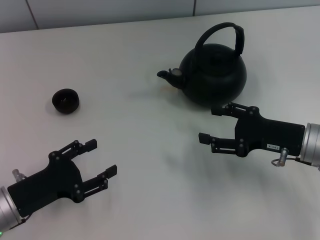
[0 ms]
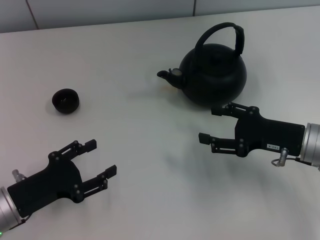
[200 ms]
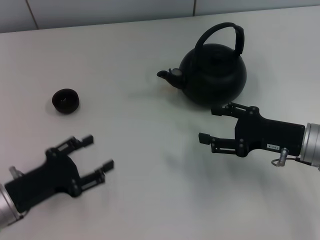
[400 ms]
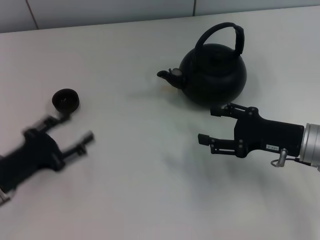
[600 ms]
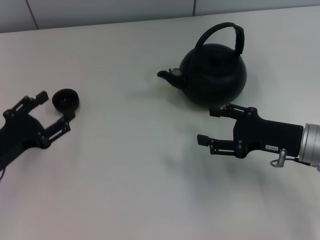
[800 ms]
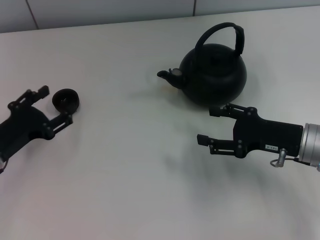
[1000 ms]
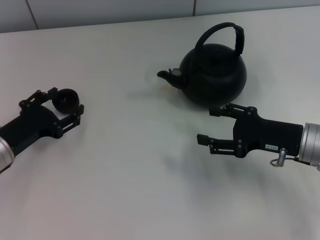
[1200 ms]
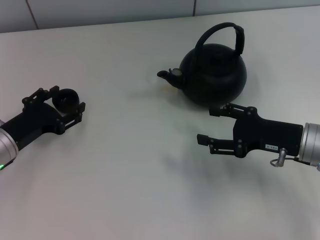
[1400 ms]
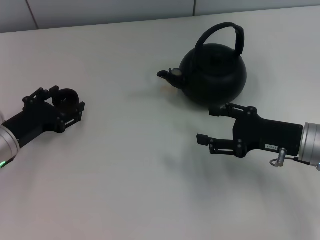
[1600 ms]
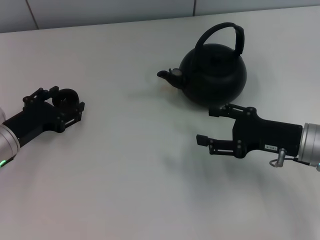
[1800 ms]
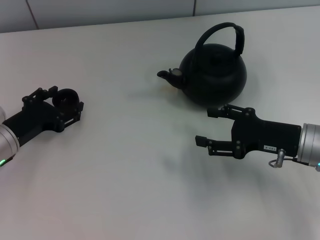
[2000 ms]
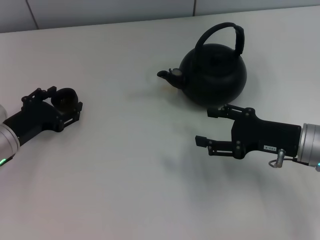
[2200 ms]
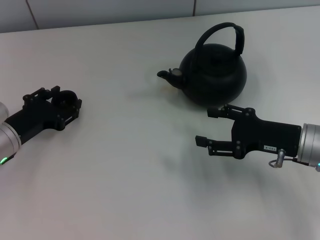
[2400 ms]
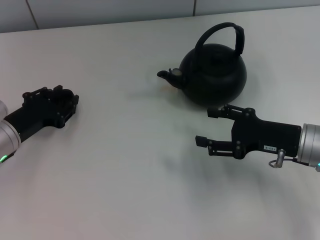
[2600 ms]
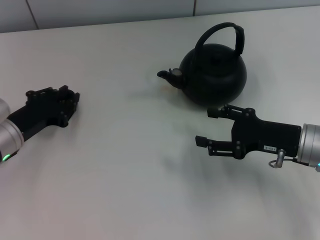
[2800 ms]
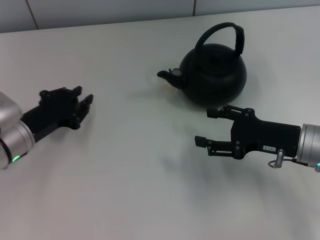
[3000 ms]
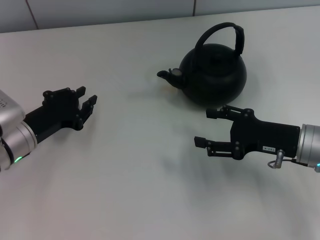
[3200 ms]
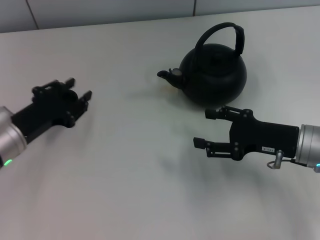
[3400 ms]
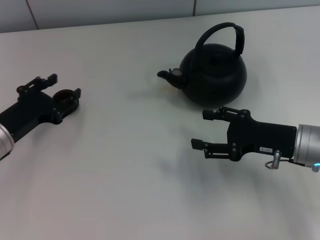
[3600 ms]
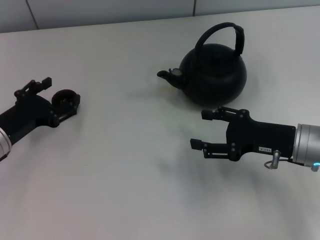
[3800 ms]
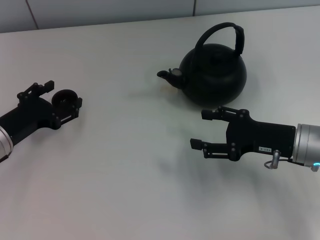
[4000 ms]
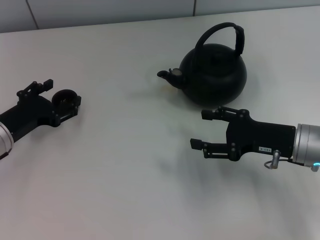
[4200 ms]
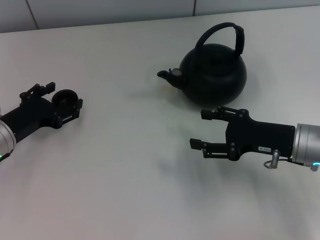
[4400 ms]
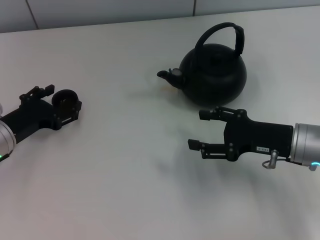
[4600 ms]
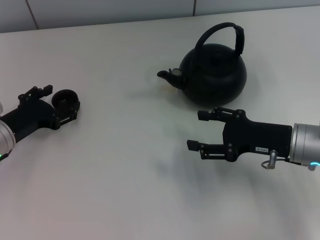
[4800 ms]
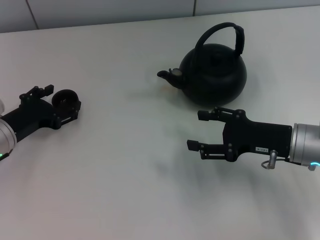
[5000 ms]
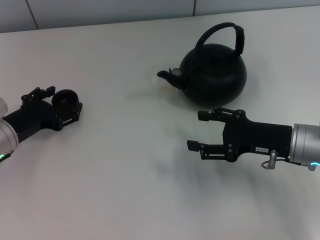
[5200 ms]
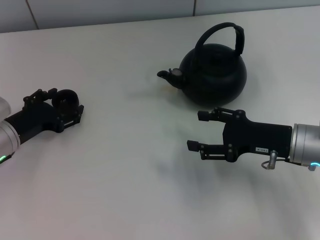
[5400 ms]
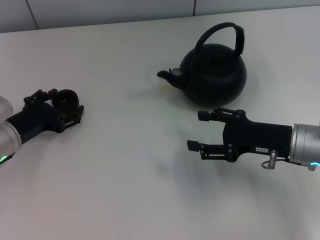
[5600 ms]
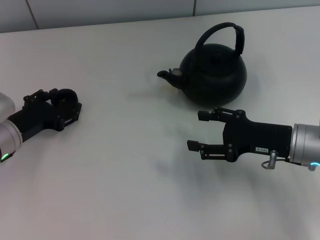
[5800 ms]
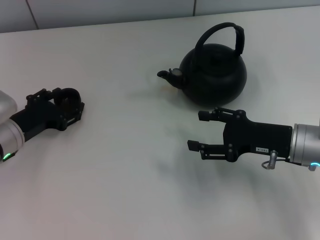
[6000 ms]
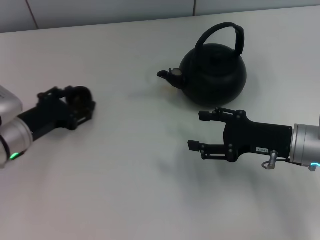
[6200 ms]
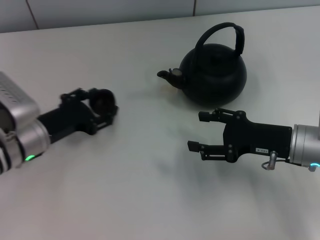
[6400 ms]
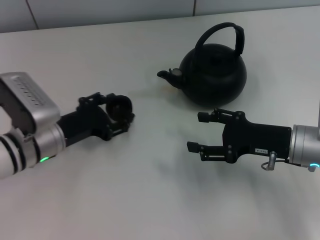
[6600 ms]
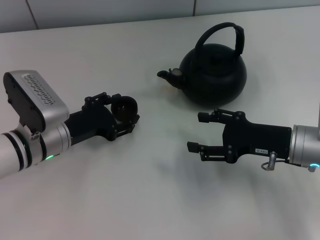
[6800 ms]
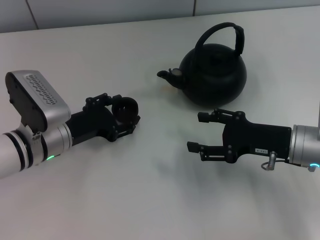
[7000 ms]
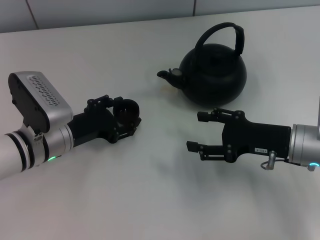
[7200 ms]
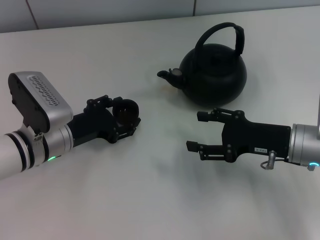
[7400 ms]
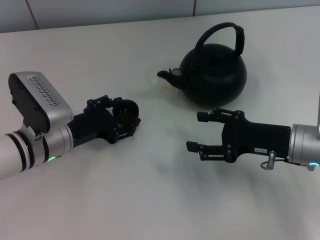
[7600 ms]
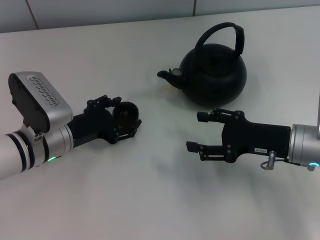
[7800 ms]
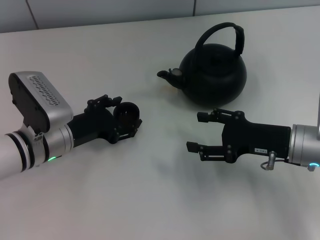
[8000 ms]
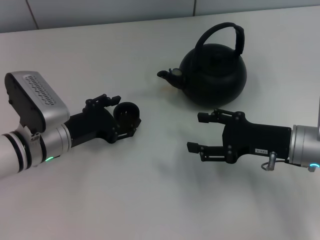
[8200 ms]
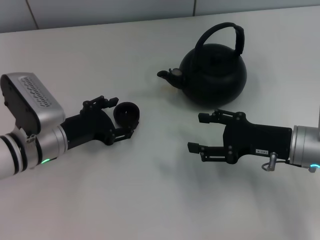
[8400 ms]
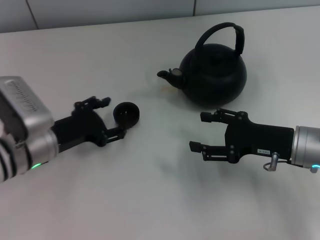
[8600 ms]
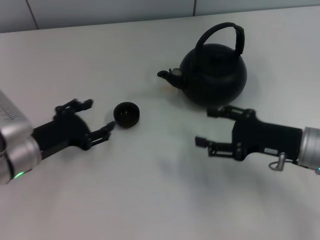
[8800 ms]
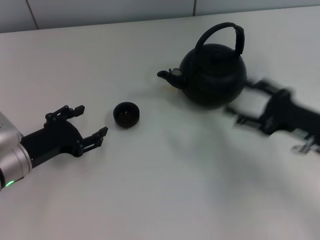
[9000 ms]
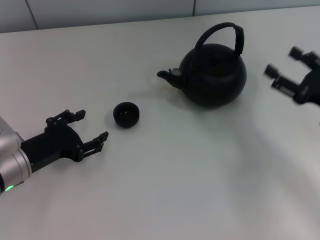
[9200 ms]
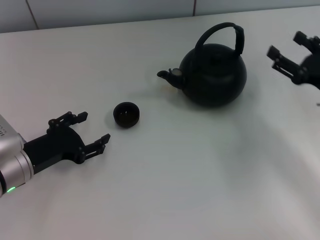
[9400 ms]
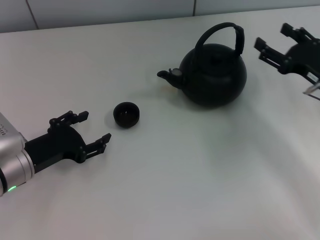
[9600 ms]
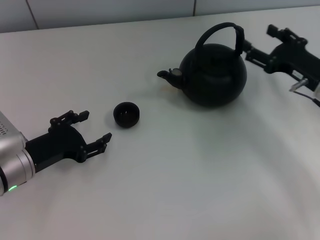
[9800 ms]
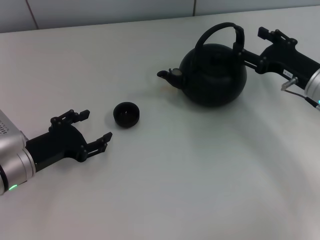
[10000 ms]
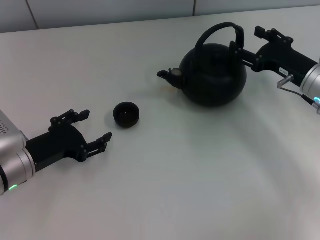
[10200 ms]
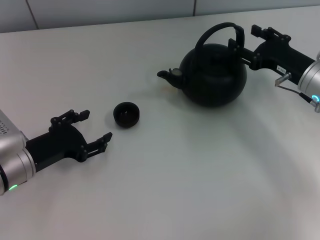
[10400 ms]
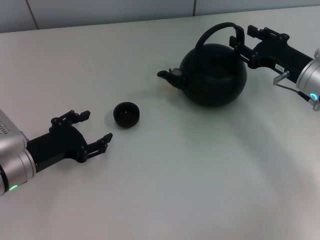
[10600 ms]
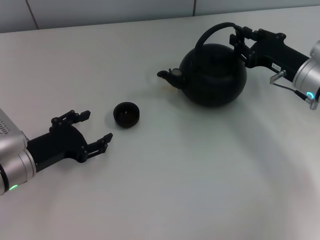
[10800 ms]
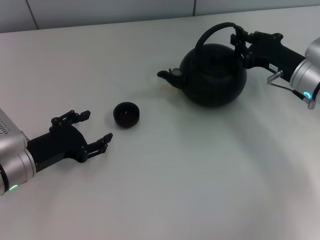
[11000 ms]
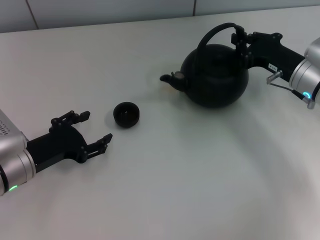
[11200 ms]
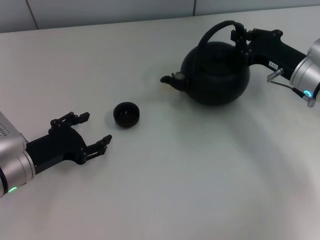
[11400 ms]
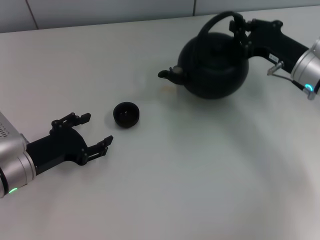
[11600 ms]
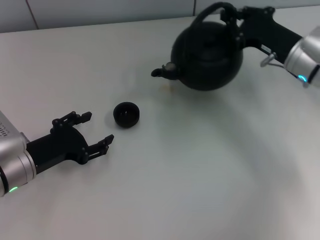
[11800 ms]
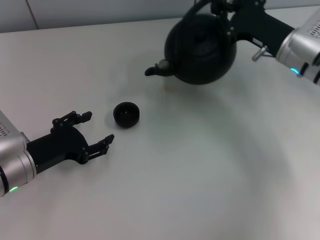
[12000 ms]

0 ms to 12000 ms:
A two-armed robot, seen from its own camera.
Task of the whole recording: Grasp the handle of the teapot with one hand and pour tea into the teacup.
Step, 0 ms to 6000 ms: Pick up the teacup with the left gripper.
Step, 6200 ms to 8600 ms: Place the teacup in the center of view with the left gripper.
Step, 8800 ms to 11600 ms: Pick up the teapot with the right gripper.
0 ms to 1600 ms: The left gripper travels forward by approximately 10 cm.
1600 ms to 3000 ms: The left gripper closes its fingers.
3000 ms to 4400 ms: The left gripper opens.
4400 ms to 6000 ms: The grippers stay close to where they were, moving slightly.
6000 ms to 7600 ms: The left gripper travels to the right by roughly 5 cm.
7600 ms to 9000 ms: The left gripper goes some 5 cm to the left, while the right gripper shifts roughly 5 cm to the right.
9000 ms to 10400 ms: The right gripper goes roughly 10 cm forward.
10400 ms to 12000 ms: The right gripper changes place by about 5 cm, and closes.

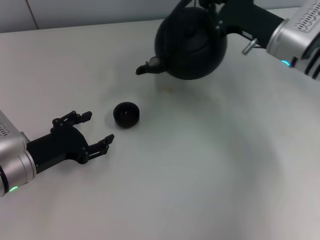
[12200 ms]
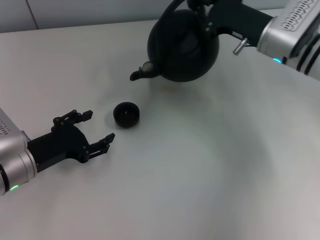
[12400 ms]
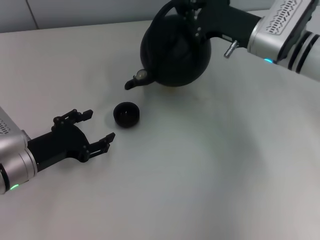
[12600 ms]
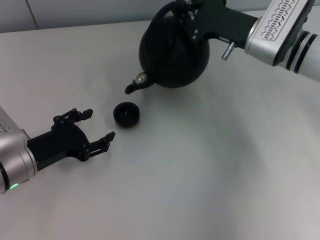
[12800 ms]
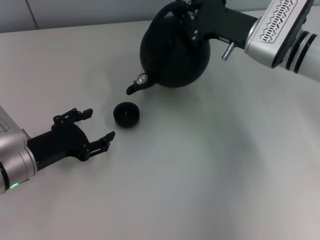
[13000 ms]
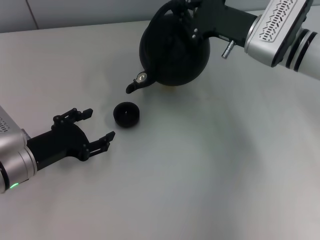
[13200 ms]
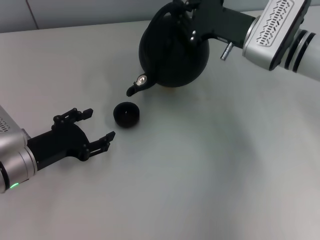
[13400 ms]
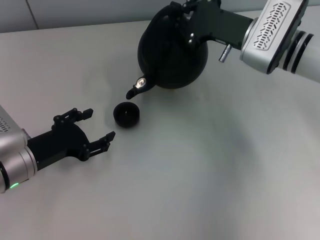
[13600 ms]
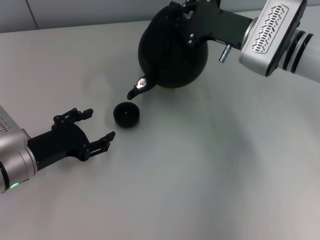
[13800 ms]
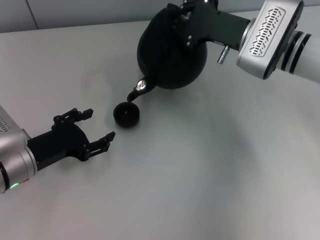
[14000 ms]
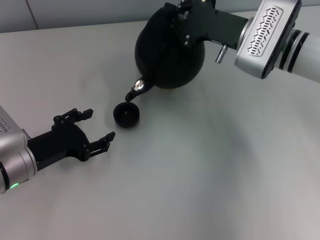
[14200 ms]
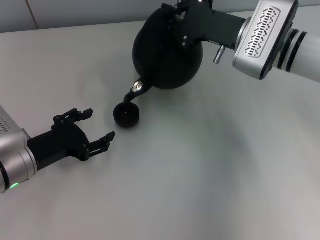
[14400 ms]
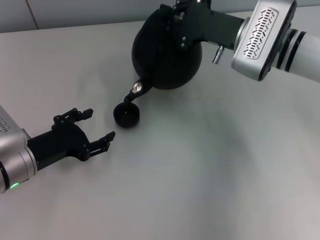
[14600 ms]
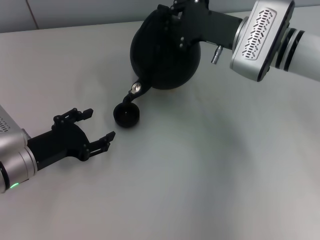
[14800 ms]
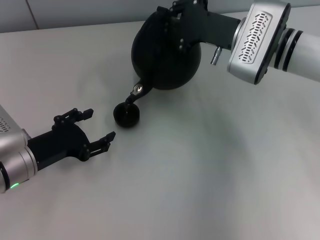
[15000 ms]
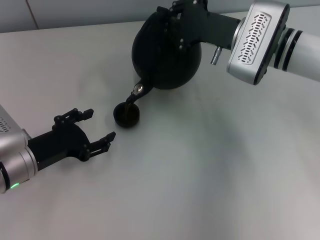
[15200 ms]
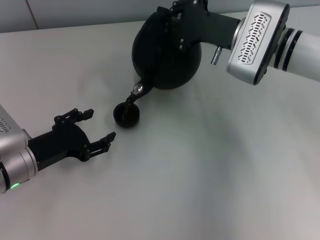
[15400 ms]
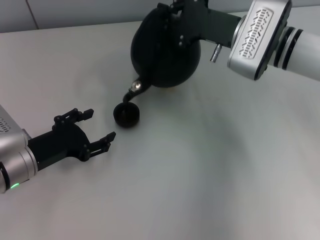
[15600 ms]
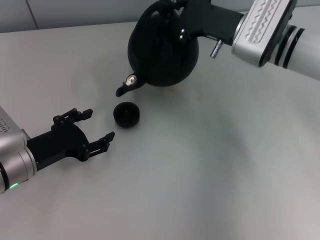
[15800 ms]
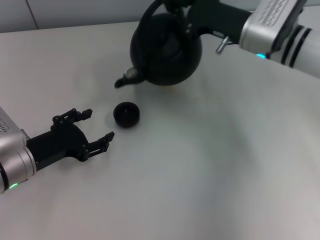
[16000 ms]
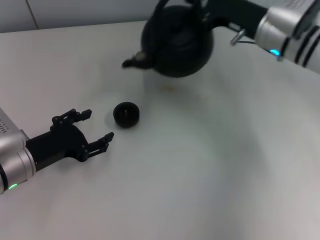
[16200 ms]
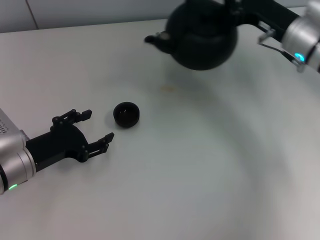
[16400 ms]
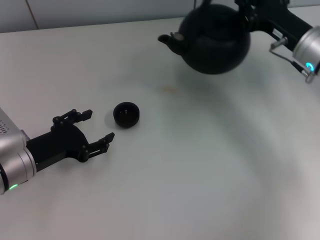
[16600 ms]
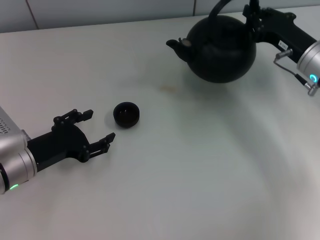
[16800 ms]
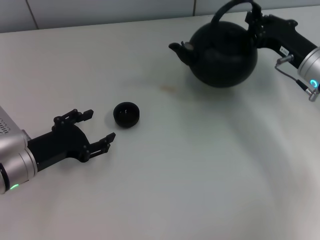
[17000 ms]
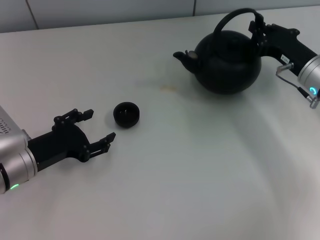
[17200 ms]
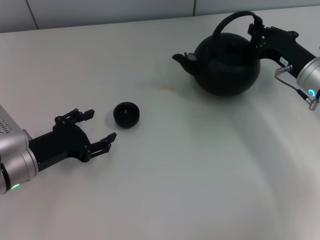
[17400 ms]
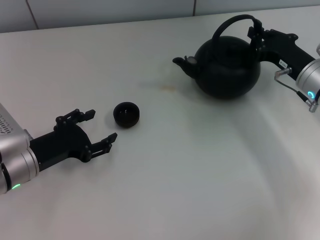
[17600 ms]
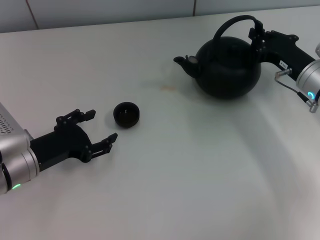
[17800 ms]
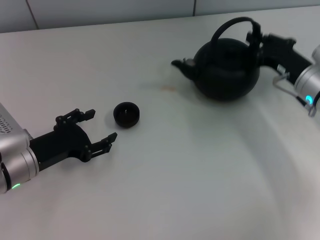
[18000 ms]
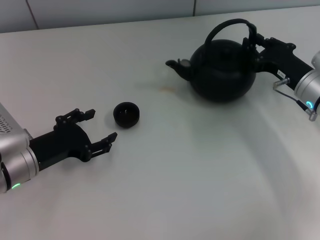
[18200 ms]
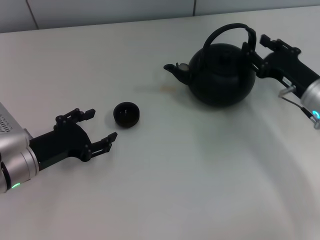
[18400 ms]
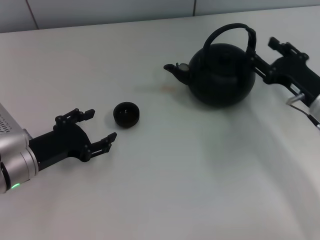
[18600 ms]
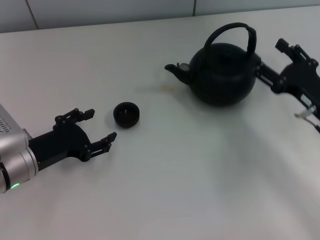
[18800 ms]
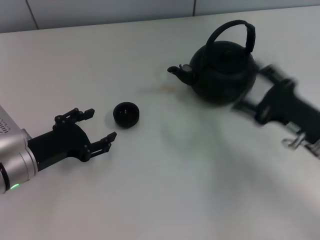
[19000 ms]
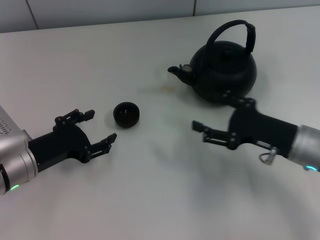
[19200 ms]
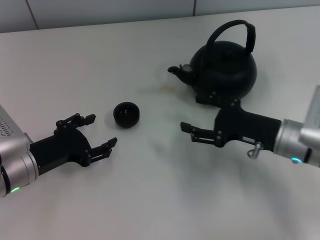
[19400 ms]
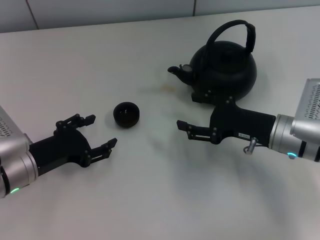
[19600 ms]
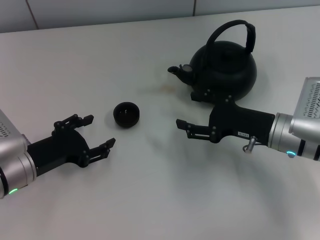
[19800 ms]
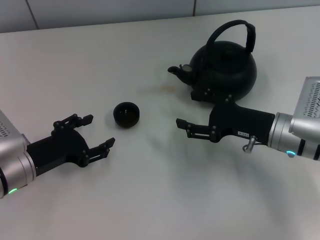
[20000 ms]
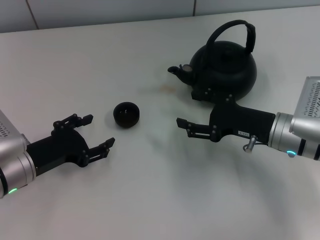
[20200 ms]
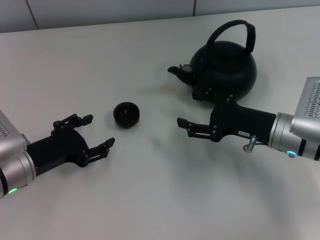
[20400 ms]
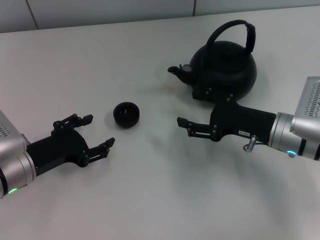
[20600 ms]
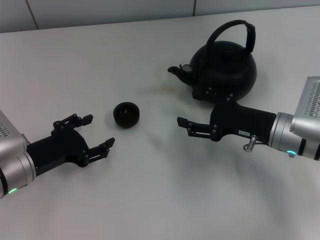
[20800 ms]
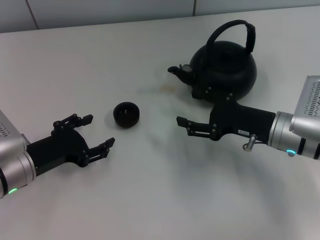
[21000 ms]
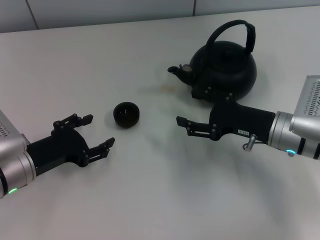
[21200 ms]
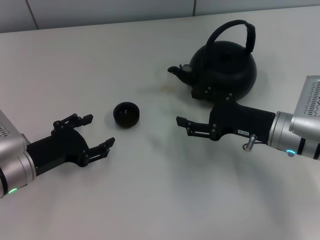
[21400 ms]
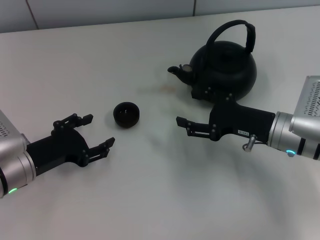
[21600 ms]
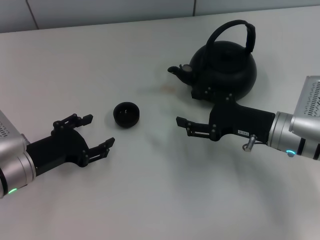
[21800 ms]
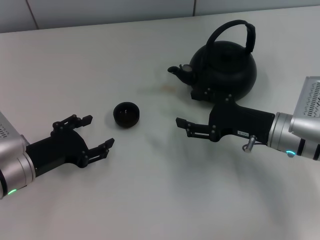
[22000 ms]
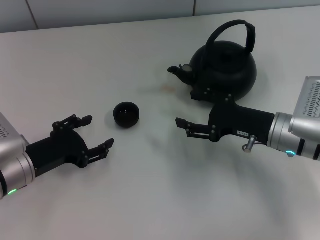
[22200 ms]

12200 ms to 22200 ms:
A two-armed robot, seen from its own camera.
Task of the whole recording: Grasp the handle of the teapot with one hand and pour tea into the teacup.
Step, 16000 ms to 18600 ms: Put down the teapot with the right gripper.
12200 ms to 13600 ms: The grippers move only a little.
13600 ms to 15000 ms: The grippers make only small movements.
15000 ms to 16400 ms: The right gripper goes roughly 5 cm to the right.
16400 ms to 18000 ms: The right gripper moves downward, some 5 cm.
18000 ms to 19400 ms: The right gripper goes some 5 cm backward, and opens.
19400 ms to 22200 ms: Both grippers stay about where they are.
